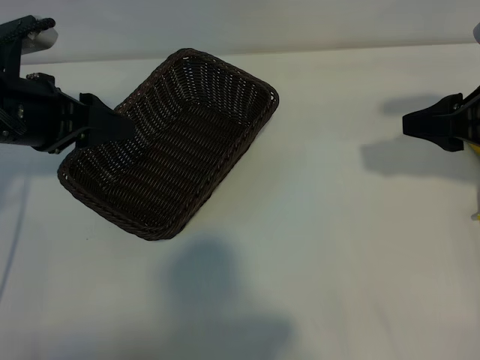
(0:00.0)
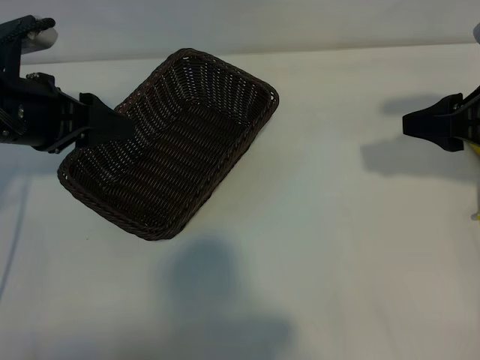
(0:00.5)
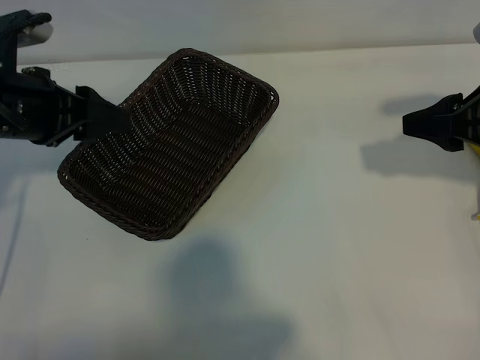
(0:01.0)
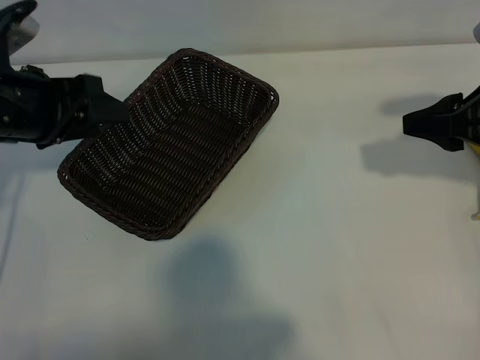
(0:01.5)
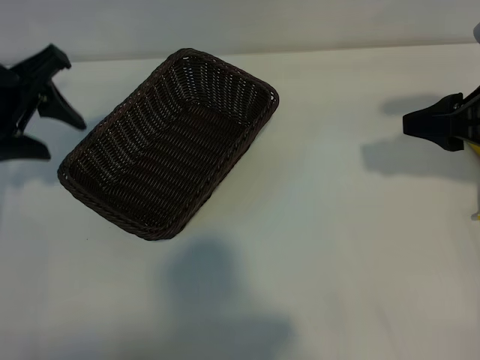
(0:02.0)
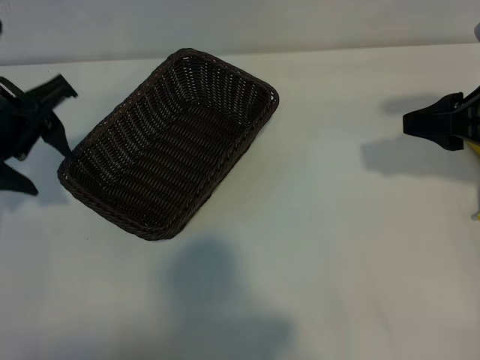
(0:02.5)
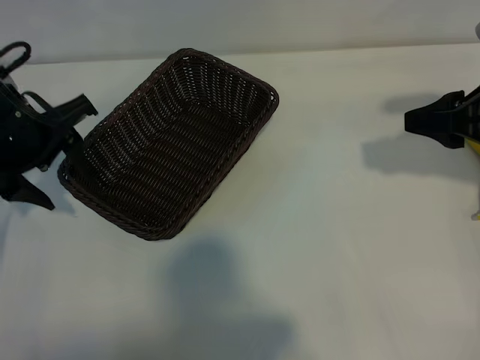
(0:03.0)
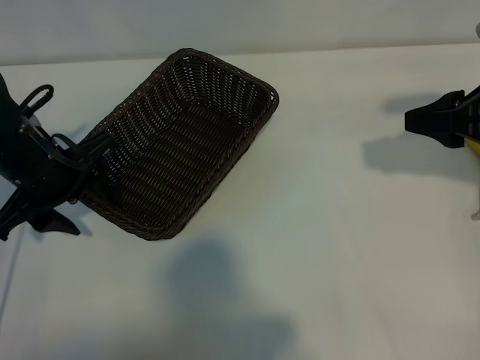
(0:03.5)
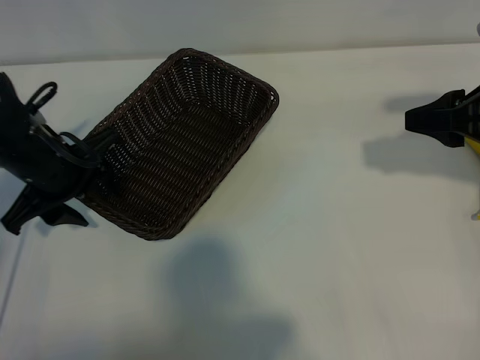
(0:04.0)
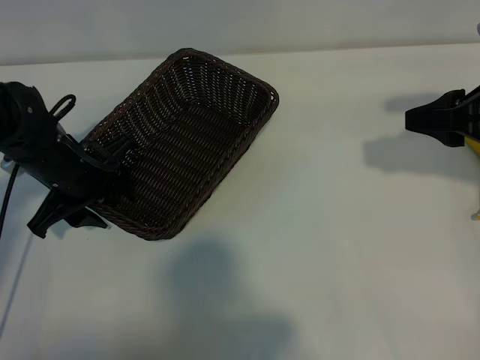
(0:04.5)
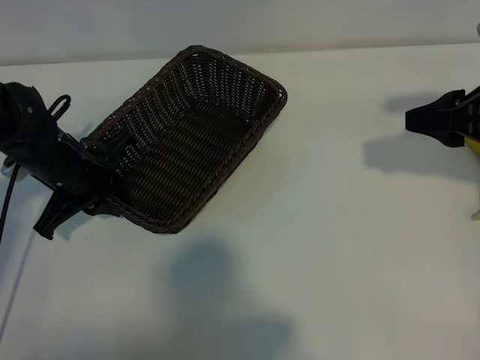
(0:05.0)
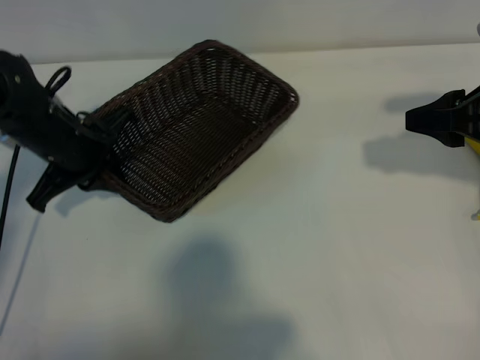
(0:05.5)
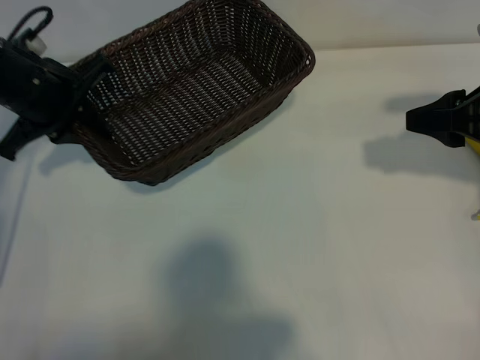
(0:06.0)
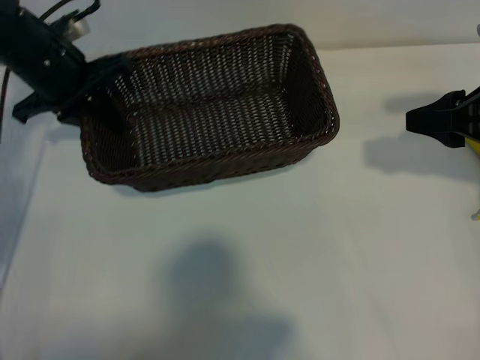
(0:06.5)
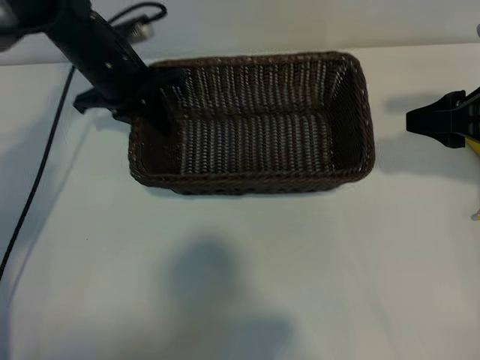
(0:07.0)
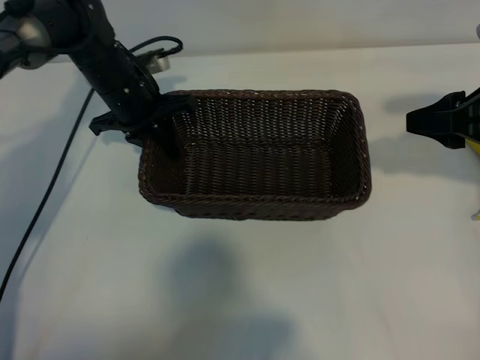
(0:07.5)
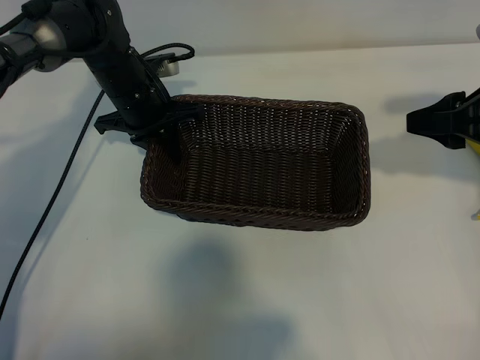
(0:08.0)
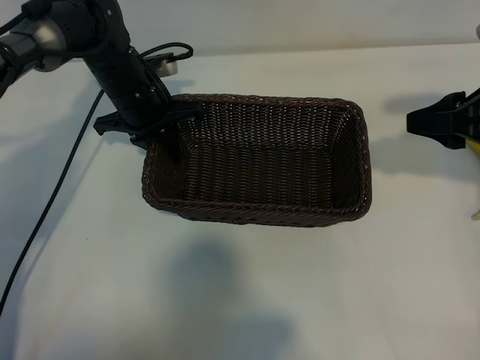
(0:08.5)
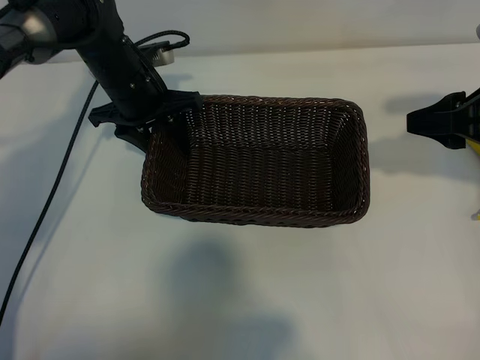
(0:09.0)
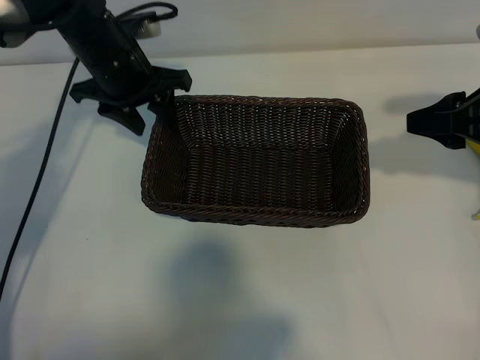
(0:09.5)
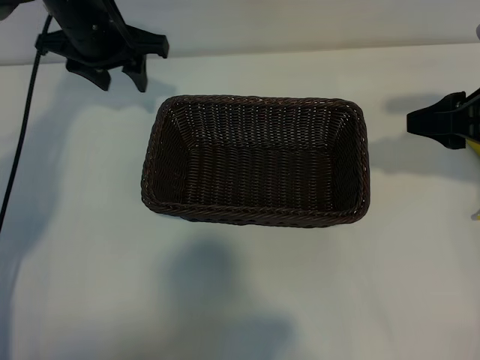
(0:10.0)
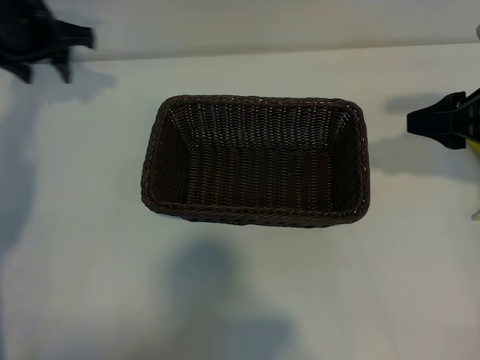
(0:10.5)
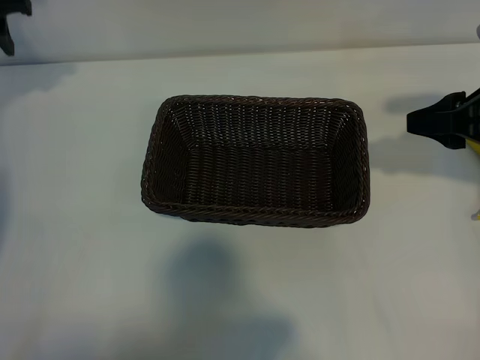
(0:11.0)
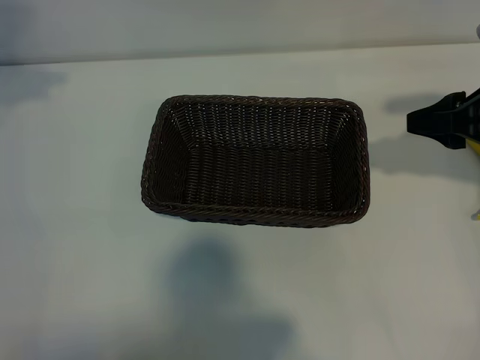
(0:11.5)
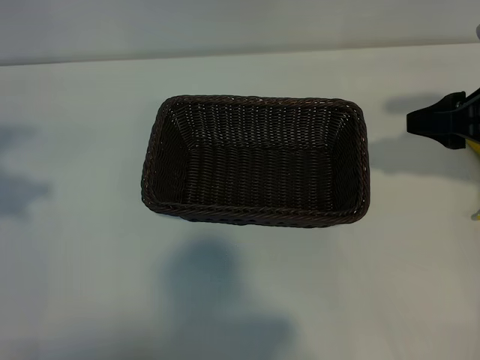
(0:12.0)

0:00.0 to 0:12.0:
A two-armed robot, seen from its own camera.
Task of the whole recording: pick up the banana and put it into the basket.
Step, 0:01.0 to 0:05.0: Grasp the basket with the left gripper.
Step, 0:05.5 to 0:09.0: Place the basket in the center of the table with the left gripper.

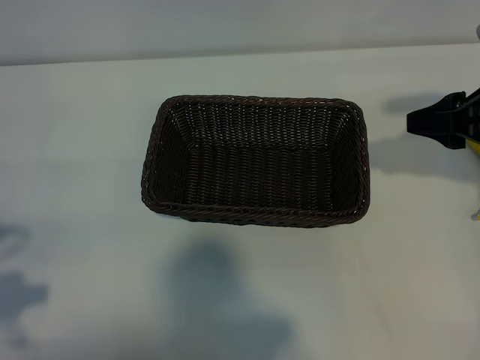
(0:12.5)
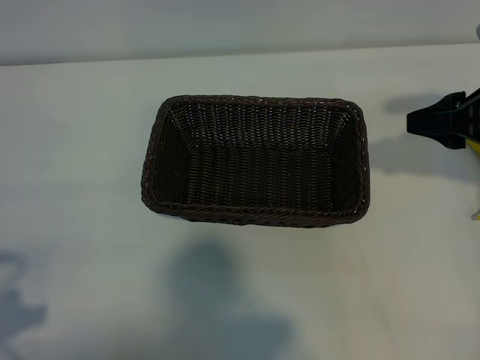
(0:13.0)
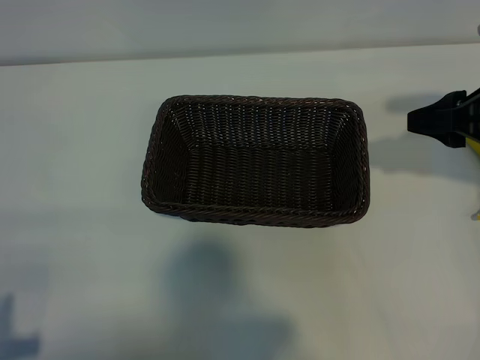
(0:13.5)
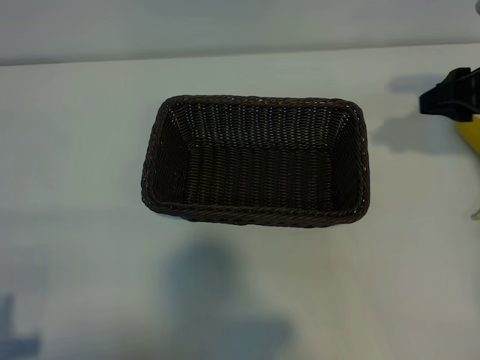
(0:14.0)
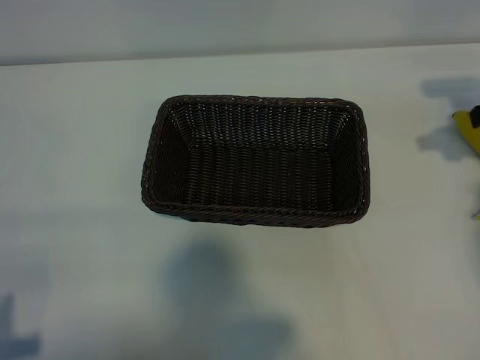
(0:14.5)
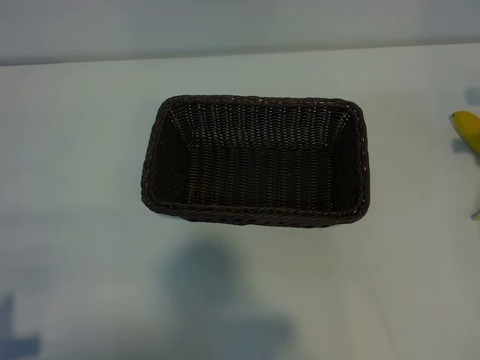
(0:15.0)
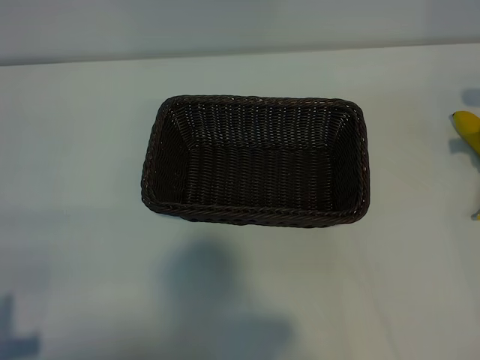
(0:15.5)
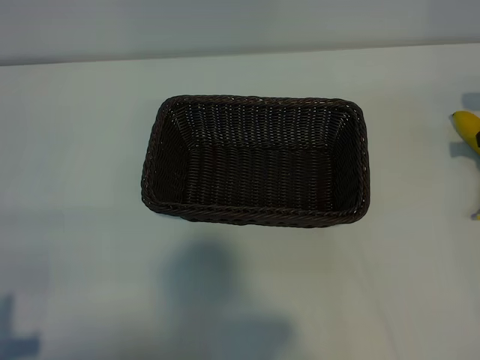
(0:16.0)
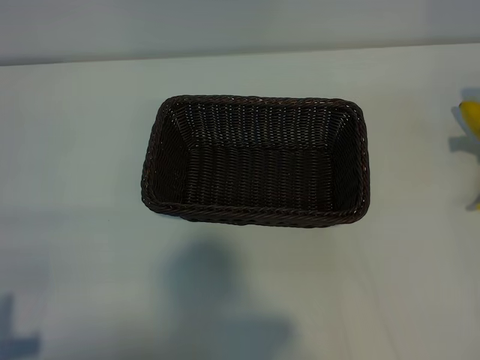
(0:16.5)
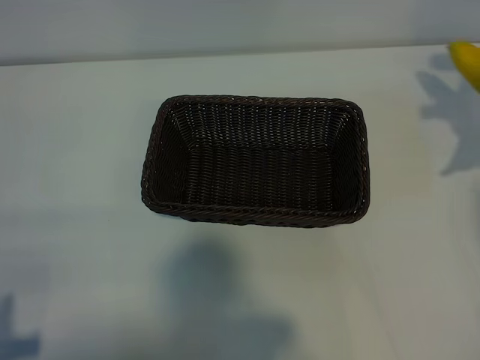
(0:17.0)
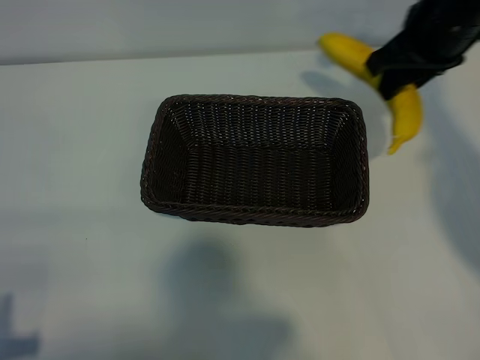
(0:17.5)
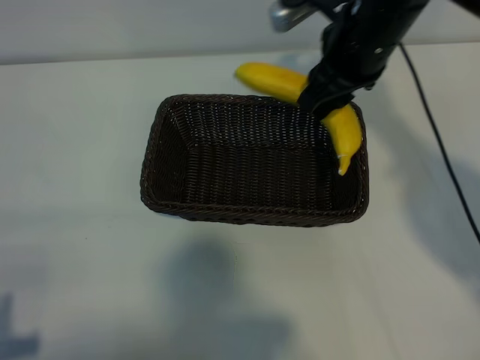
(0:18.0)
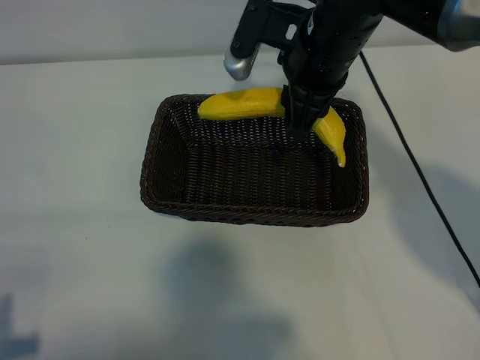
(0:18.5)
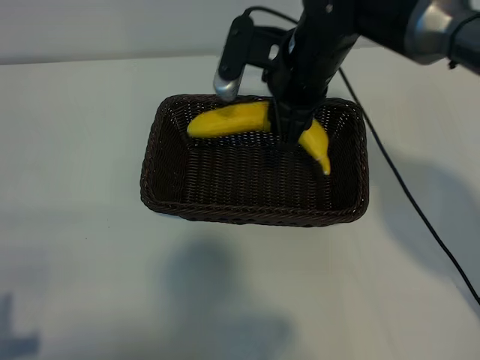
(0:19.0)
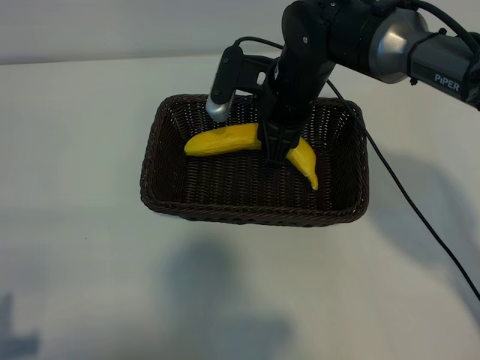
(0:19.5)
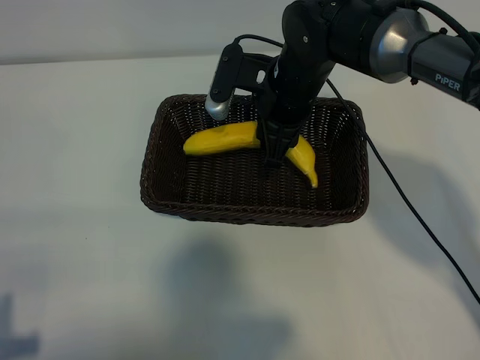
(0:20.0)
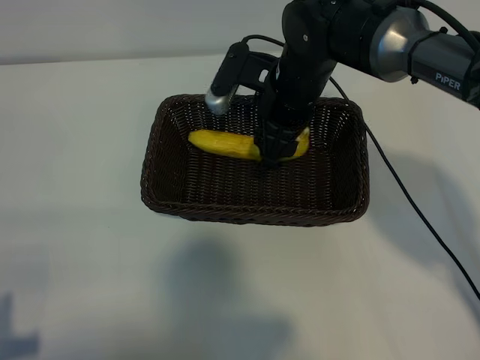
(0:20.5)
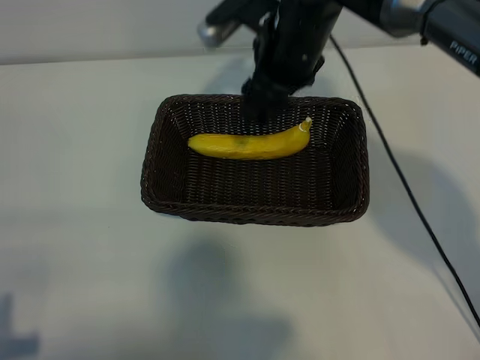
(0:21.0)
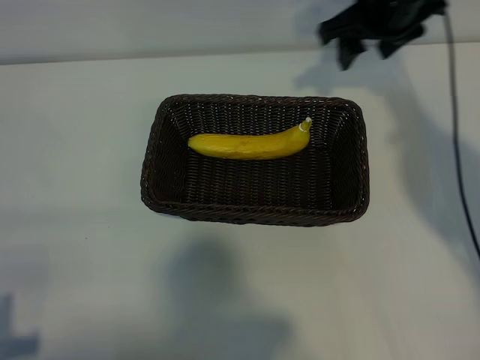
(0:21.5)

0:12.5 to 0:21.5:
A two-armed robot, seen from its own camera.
Task of the whole recording: pick up the banana and put it into the basket.
Step, 0:12.5 to 0:16.0: Grasp the banana with right gripper.
Step, 0:16.5 to 0:21.0: Place the banana in the basket with right gripper.

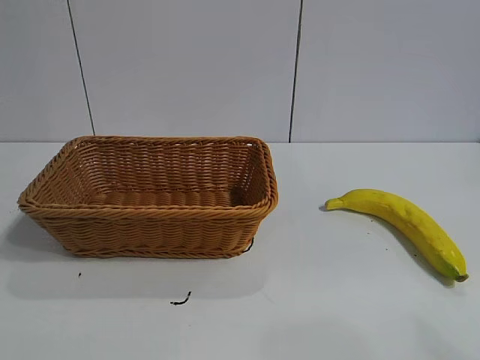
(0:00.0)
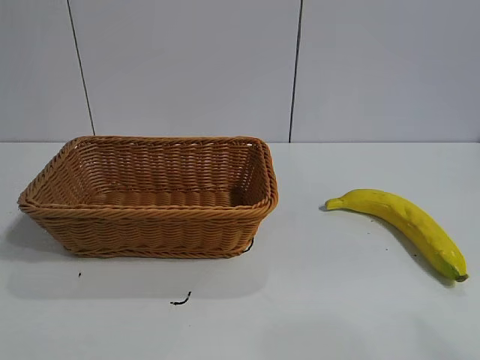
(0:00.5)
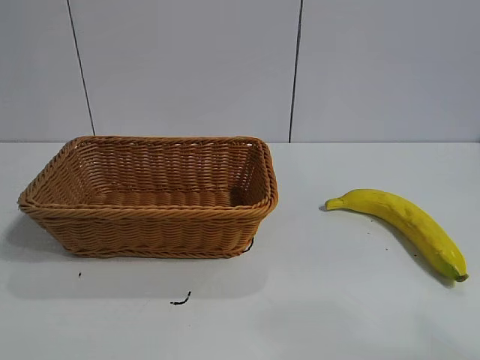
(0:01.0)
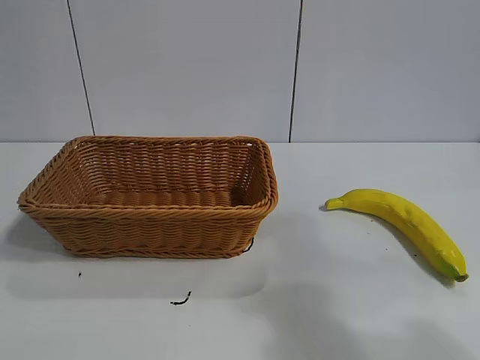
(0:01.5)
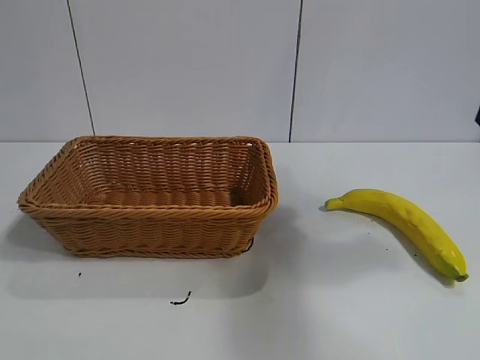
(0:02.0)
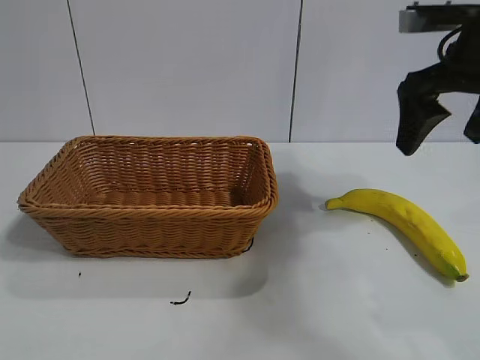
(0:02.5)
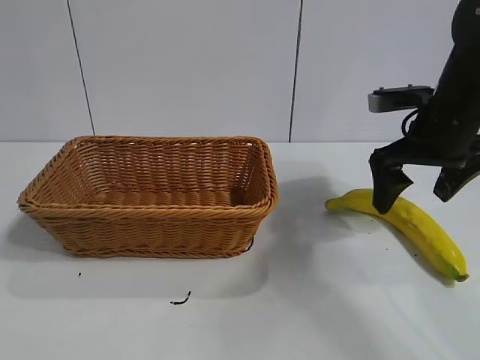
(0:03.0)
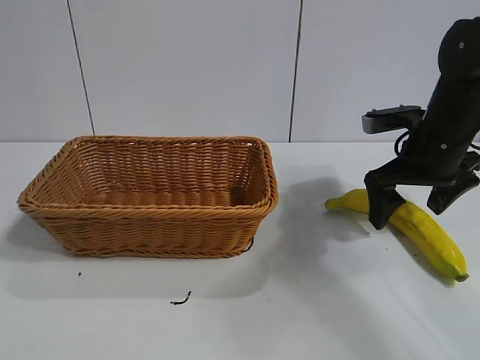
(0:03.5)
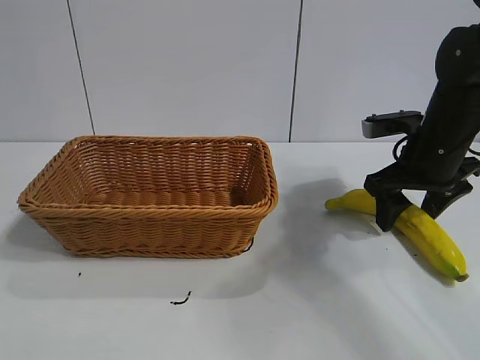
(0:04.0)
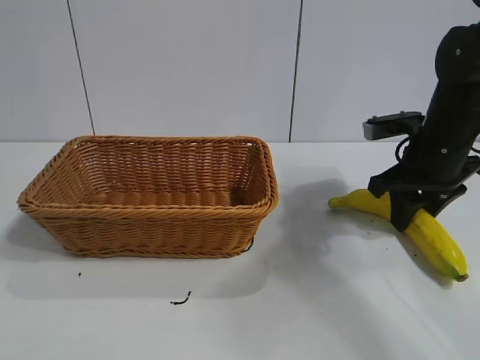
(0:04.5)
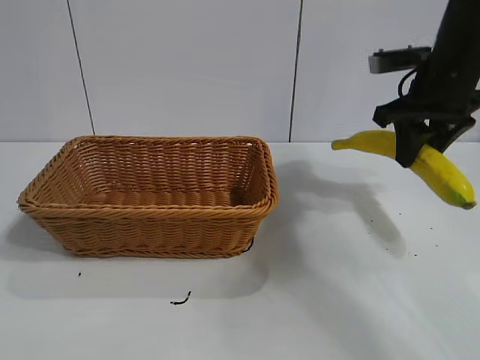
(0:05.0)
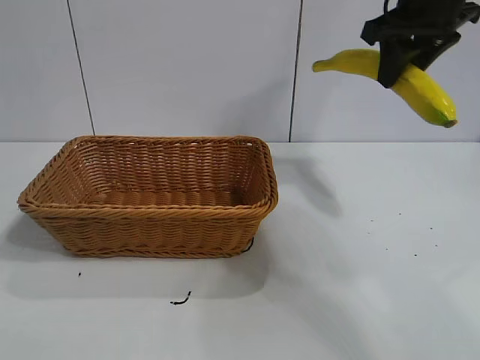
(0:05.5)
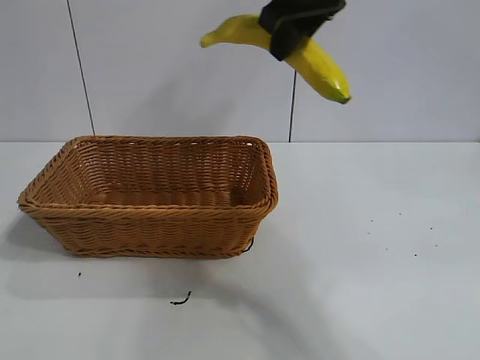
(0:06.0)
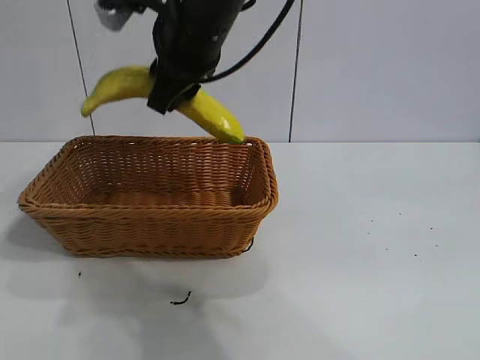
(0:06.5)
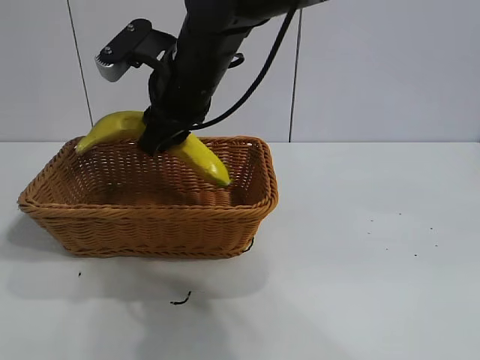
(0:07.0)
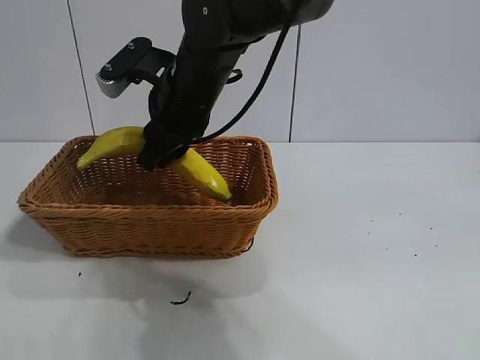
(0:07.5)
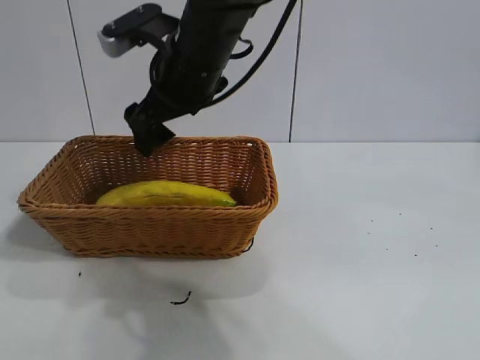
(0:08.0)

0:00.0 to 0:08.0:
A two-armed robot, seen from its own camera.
Task of the whole recording: pick up the banana and put it into the basket.
Step, 0:02.0 to 0:04.5: Grasp the banana with right gripper.
Step, 0:05.0 to 0:07.5: Place the banana in the basket with right gripper.
